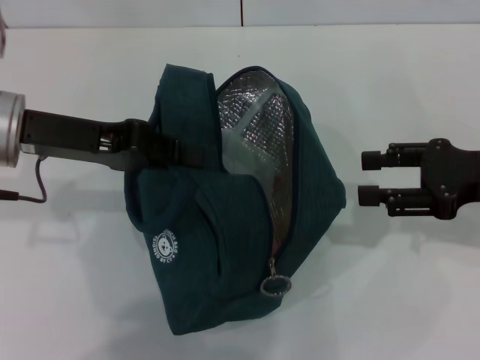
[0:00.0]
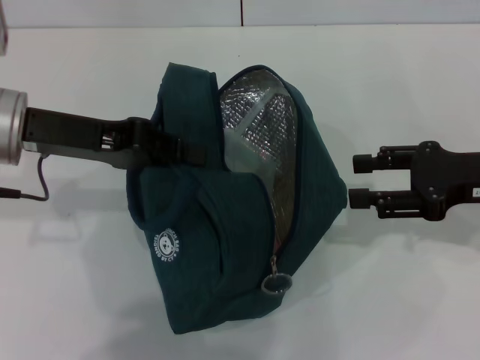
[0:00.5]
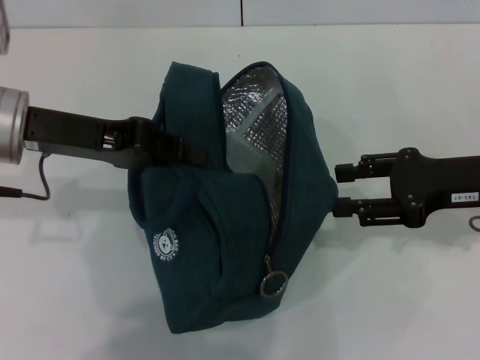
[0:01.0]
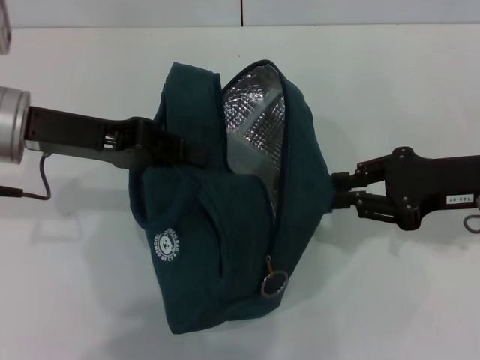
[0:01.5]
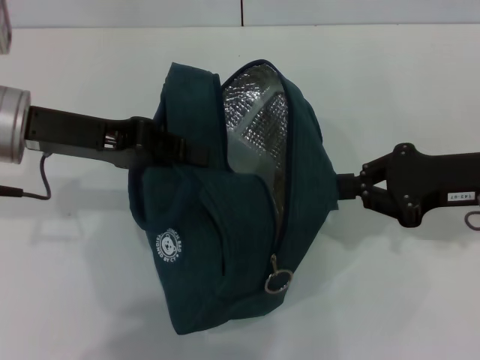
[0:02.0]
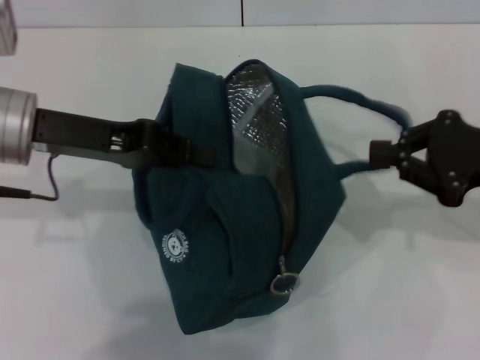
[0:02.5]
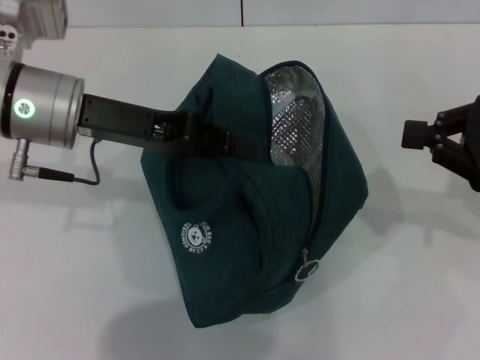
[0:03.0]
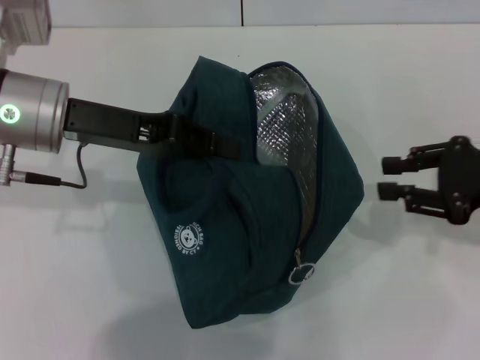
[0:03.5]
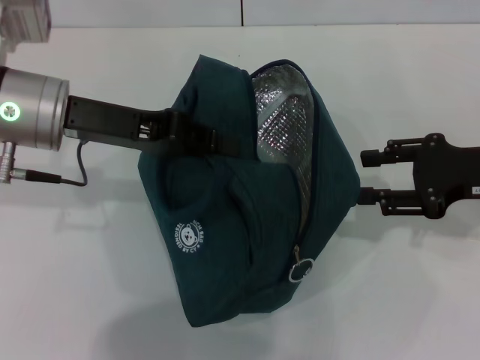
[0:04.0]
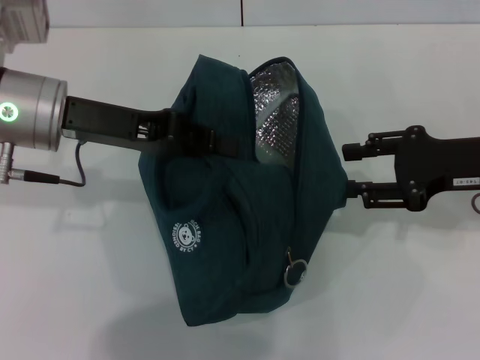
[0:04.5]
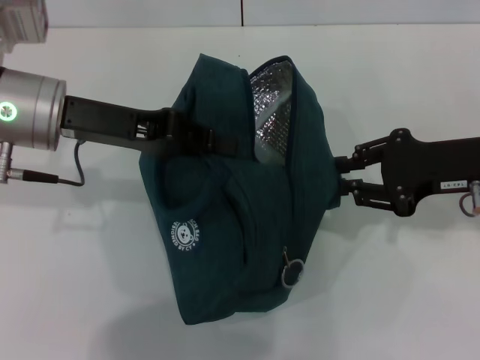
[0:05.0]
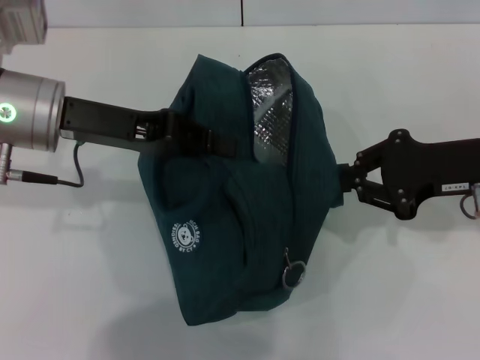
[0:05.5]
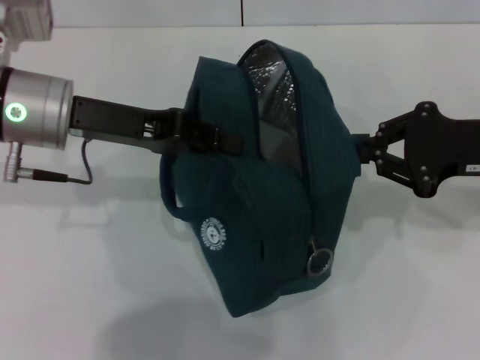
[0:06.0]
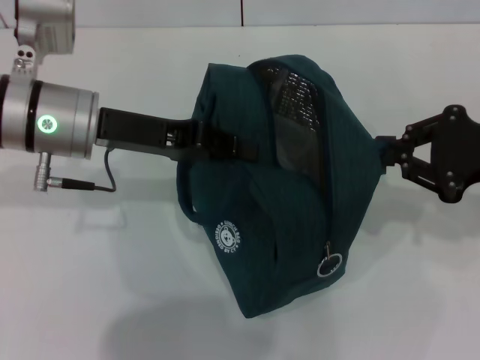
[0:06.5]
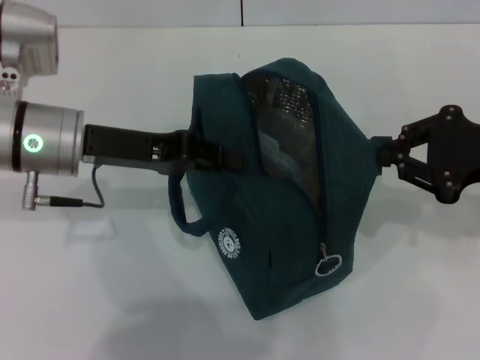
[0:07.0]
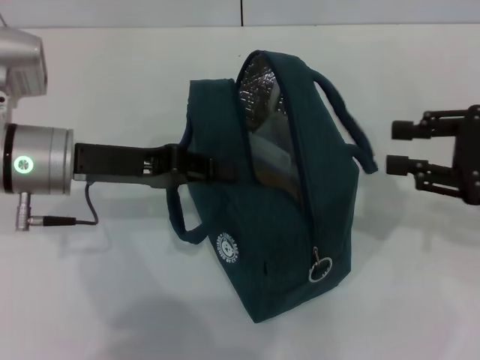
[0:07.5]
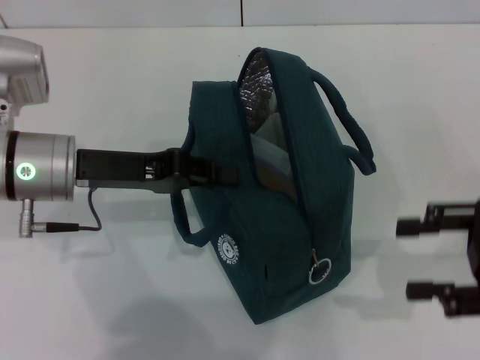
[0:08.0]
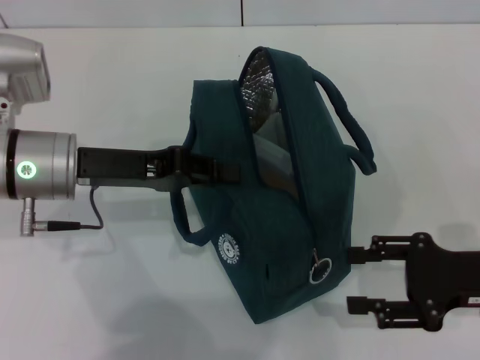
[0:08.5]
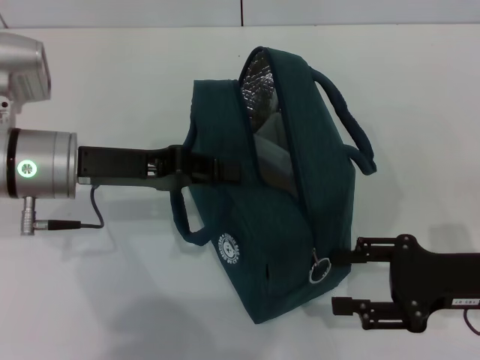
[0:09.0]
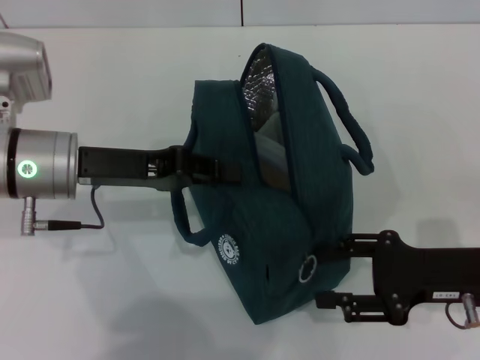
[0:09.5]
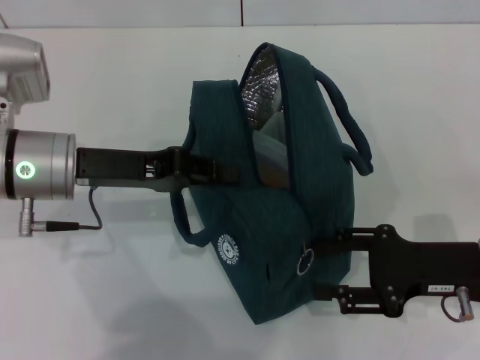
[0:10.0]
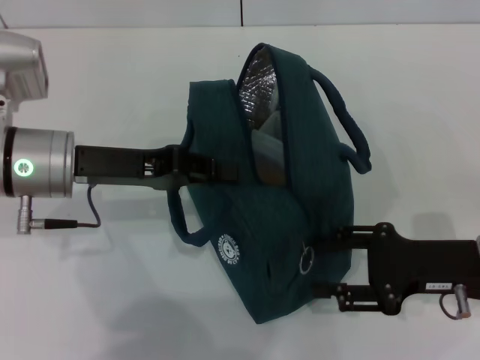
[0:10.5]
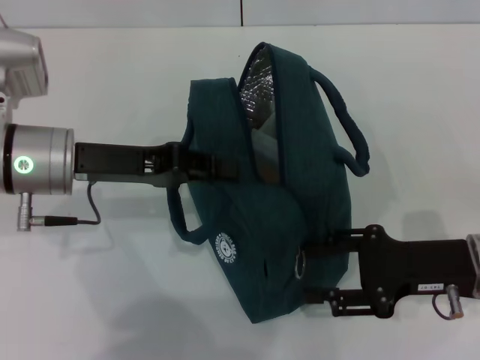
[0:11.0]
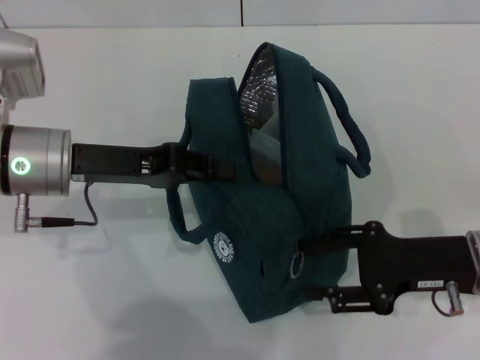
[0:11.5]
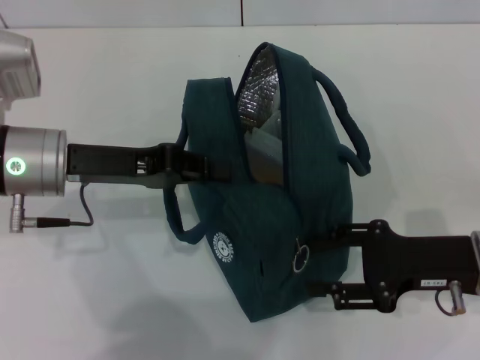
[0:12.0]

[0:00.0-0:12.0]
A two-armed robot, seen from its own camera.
Step, 0:00.0 to 0:07.5: Hold the lunch bag with your right hand.
0:00.0 to 0:02.0: The right gripper closes.
0:02.0 to 0:04.0: The right gripper opens.
0:04.0 to 0:06.0: The right gripper closes its fingers.
0:06.0 to 0:08.0: The right gripper shifts approximately 5 cm backward, and opens its fingers. The left gripper moves roughly 5 cm.
0:08.0 to 0:10.0: The right gripper moves downward and to the left, about 10 cm.
0:10.0 to 0:12.0: The grippers make only small movements.

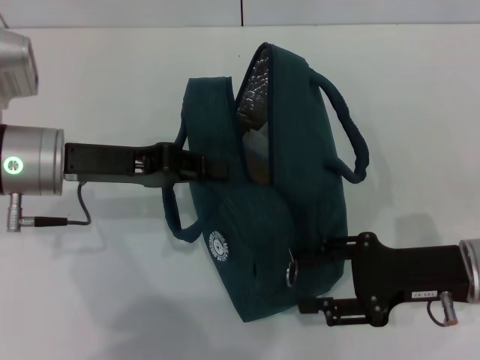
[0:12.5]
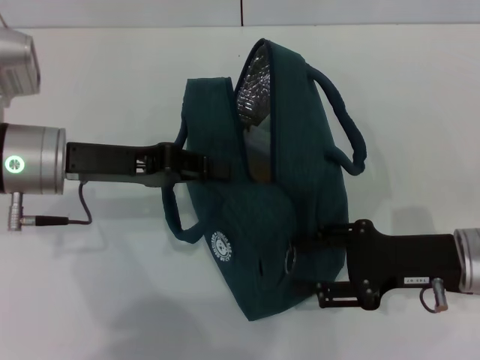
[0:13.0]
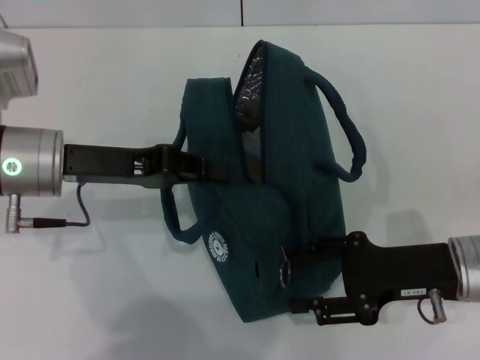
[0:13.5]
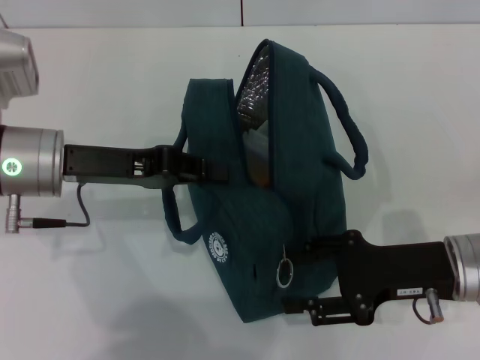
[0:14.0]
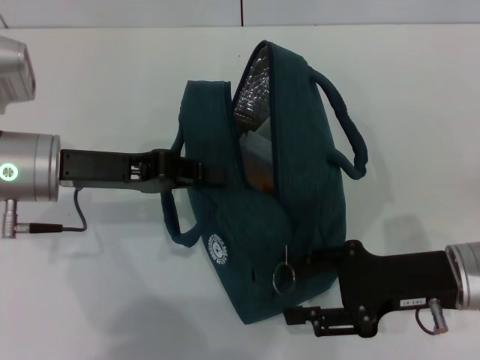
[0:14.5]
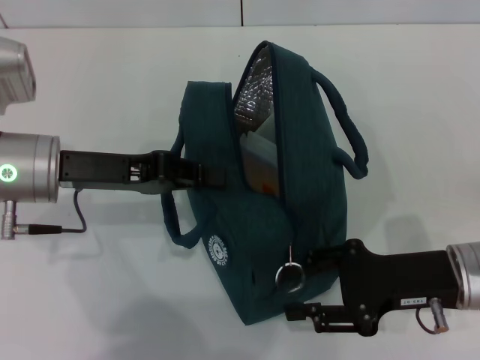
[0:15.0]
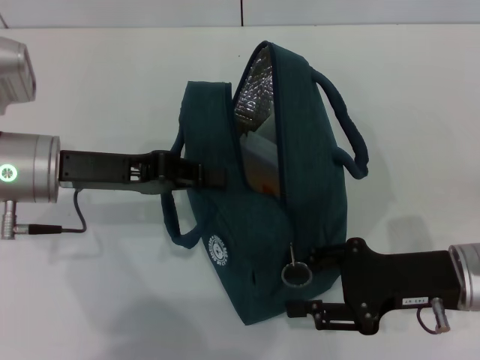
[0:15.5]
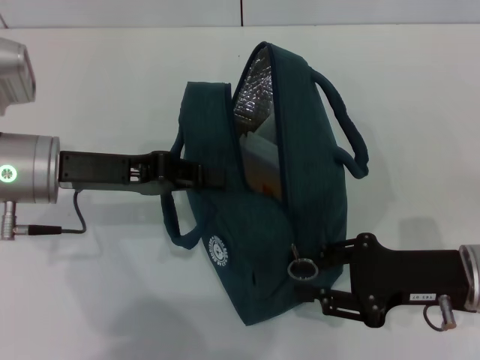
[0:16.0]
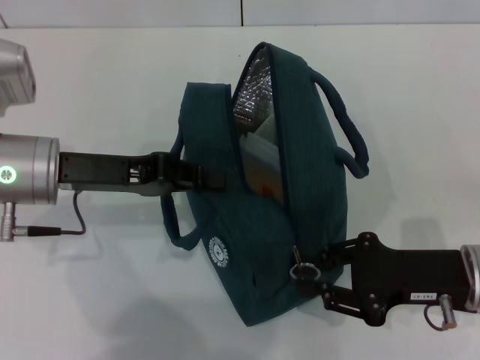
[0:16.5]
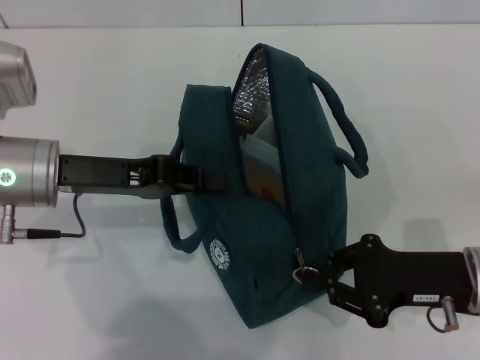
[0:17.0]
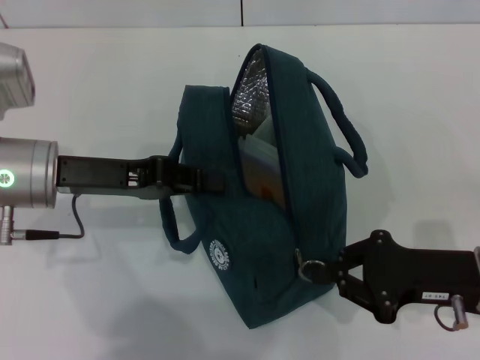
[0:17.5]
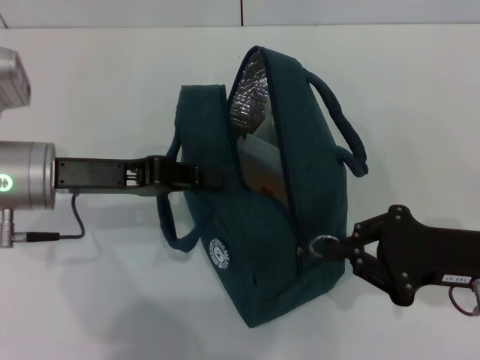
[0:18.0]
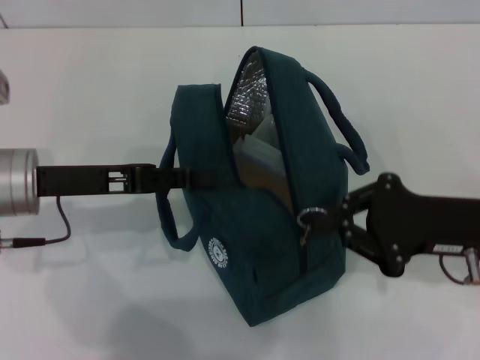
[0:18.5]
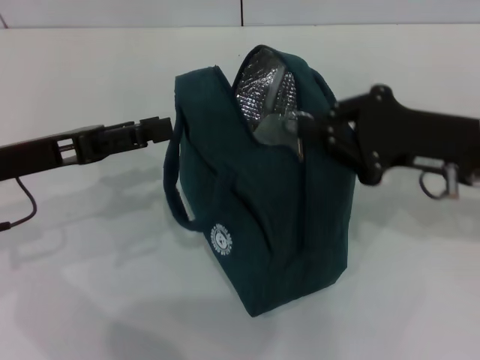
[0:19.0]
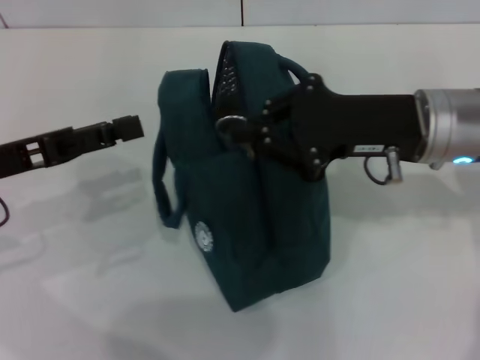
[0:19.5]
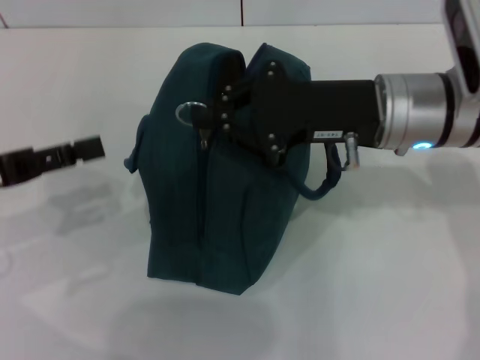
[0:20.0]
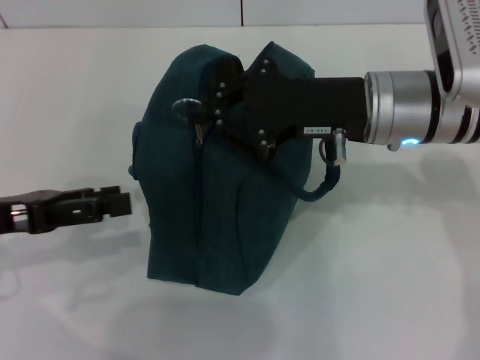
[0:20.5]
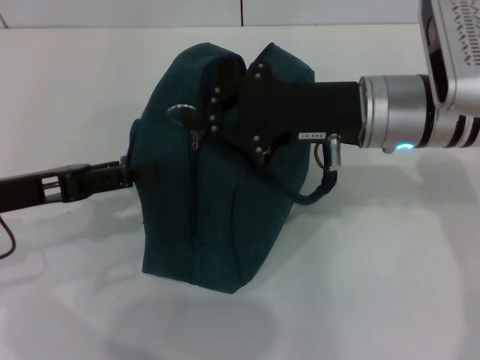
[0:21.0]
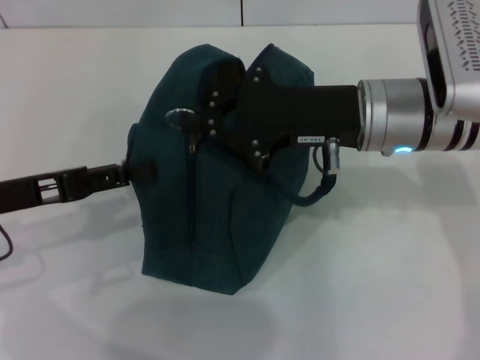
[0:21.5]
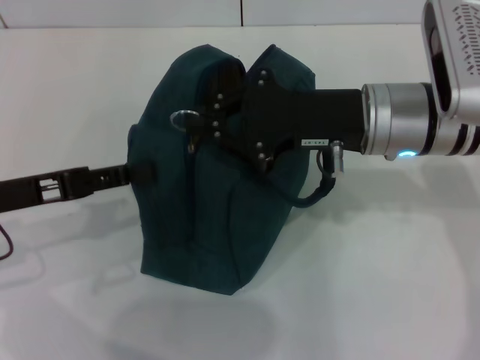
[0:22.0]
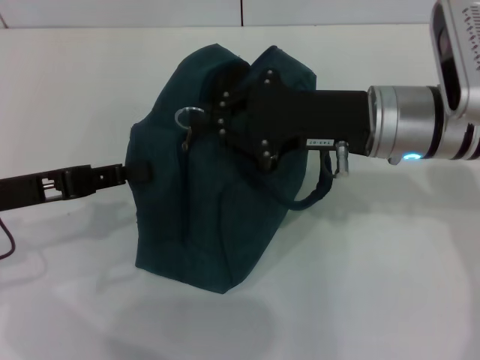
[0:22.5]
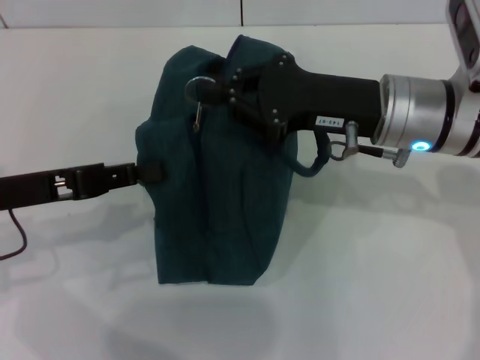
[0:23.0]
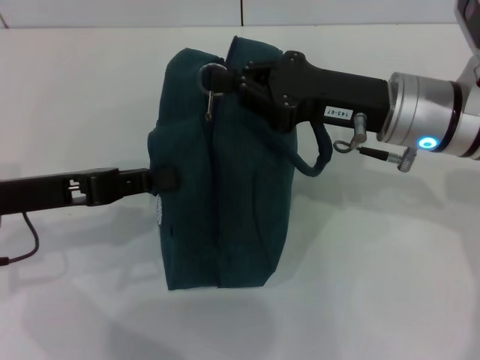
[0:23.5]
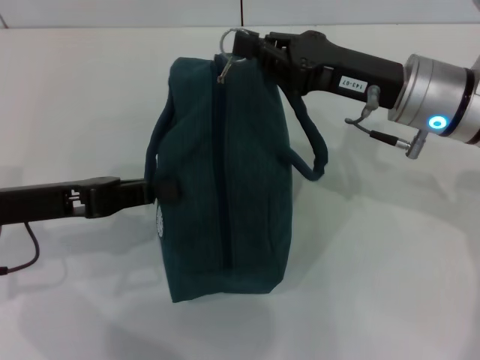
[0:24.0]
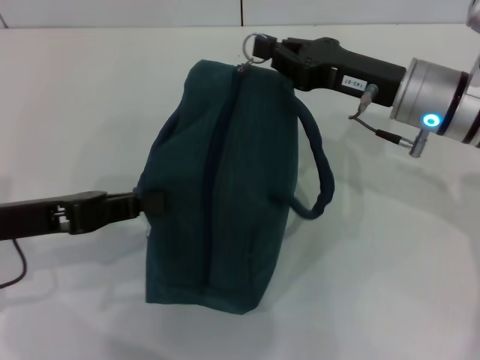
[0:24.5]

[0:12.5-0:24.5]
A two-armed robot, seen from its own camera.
Step, 0:12.5 to 0:18.5: Hold the lunch bag with your left hand.
0:12.5 to 0:16.5: The grippers make only small movements.
0:16.5 to 0:18.5: The right gripper closes.
0:18.5 to 0:20.5: The right gripper goes about 15 cm to the left, forward and upward. Meanwhile the left gripper moves to the left and backward, some 10 cm, and opens its fingers.
0:20.5 to 0:22.5: The left gripper closes up.
0:22.5 to 0:24.5: The right gripper moves some 5 cm.

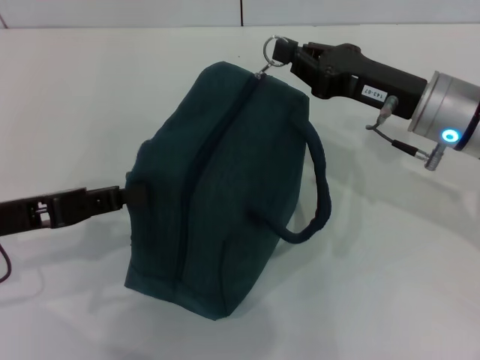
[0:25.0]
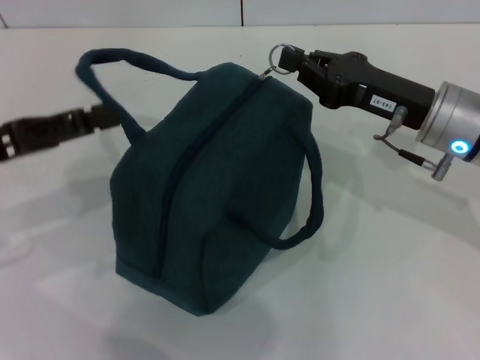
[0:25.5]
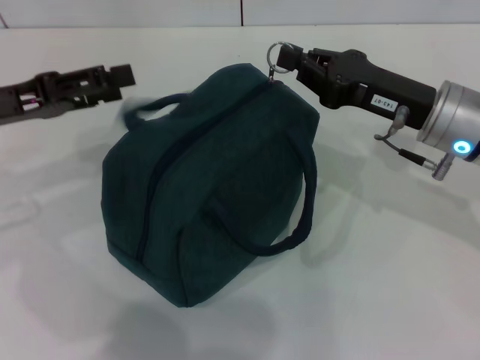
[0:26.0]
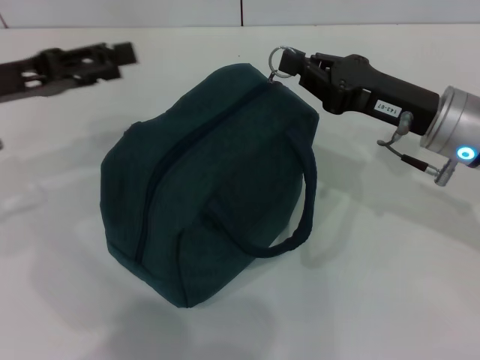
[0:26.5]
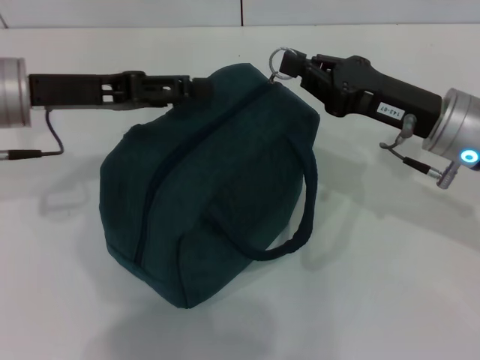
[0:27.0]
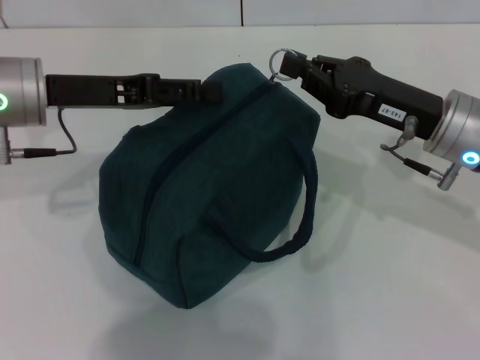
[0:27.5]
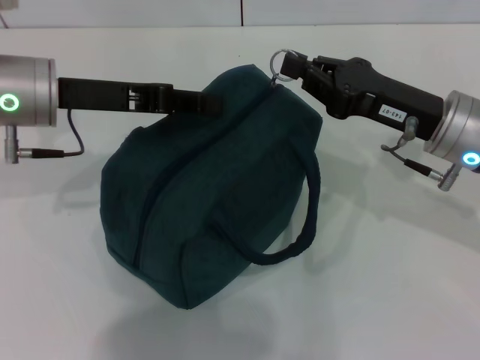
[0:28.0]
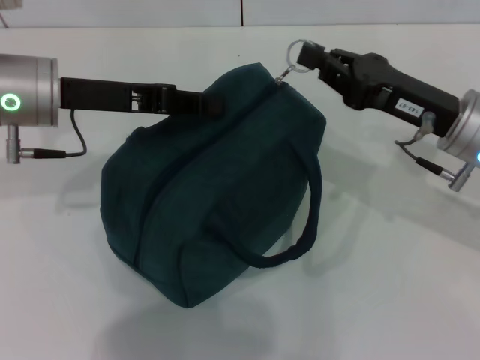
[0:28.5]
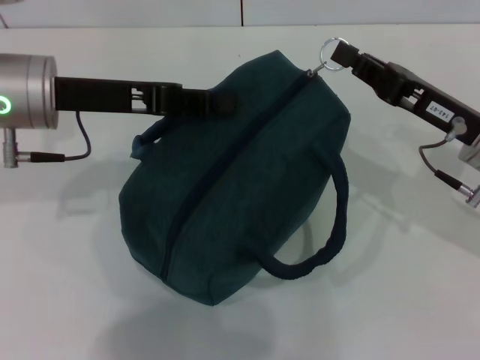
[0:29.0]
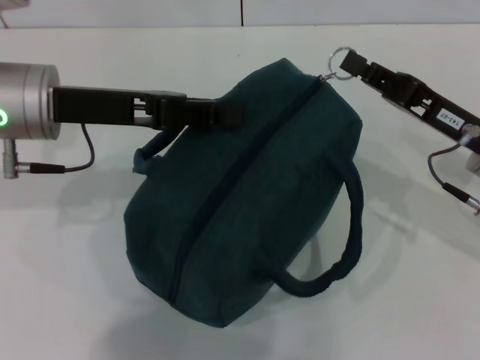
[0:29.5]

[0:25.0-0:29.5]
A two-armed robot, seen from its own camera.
0:25.0 to 0:27.0: The left gripper moves forward and upward, about 10 cm, and opens its fingers.
0:27.0 to 0:29.5: The left gripper closes its fingers. Meanwhile the right gripper ends up roughly 5 cm from where it was.
